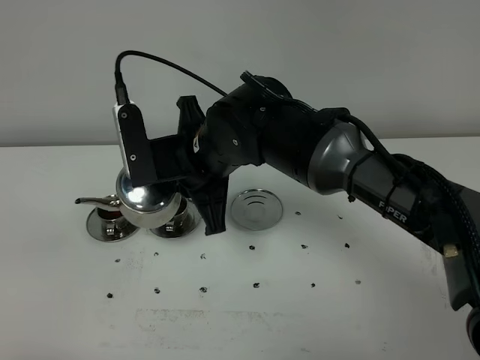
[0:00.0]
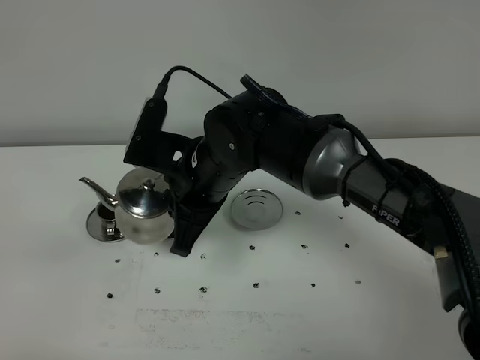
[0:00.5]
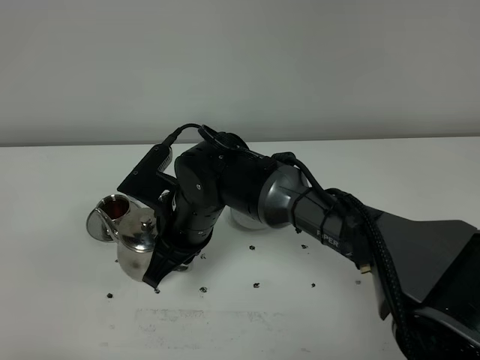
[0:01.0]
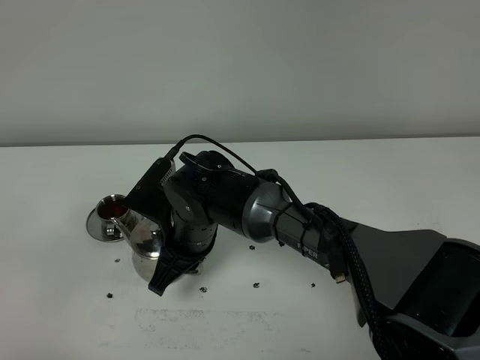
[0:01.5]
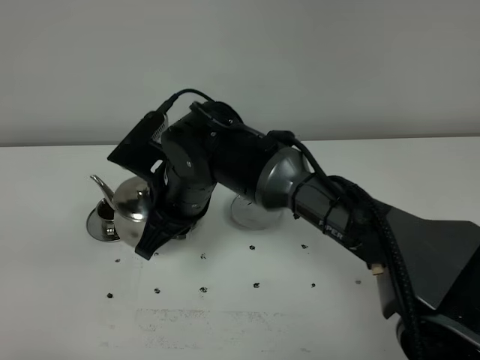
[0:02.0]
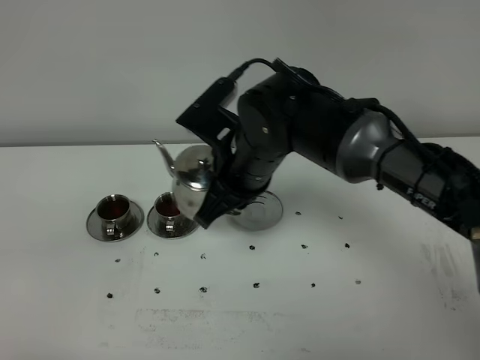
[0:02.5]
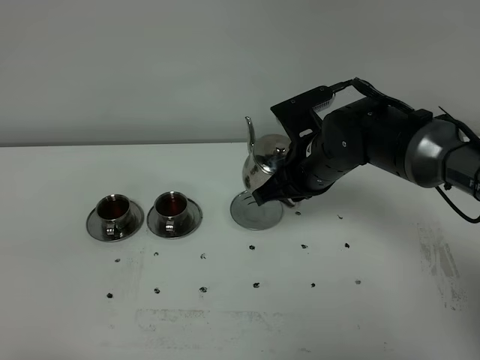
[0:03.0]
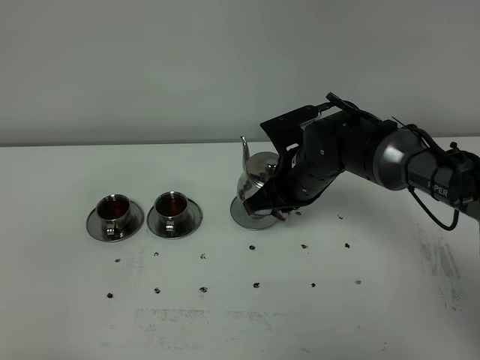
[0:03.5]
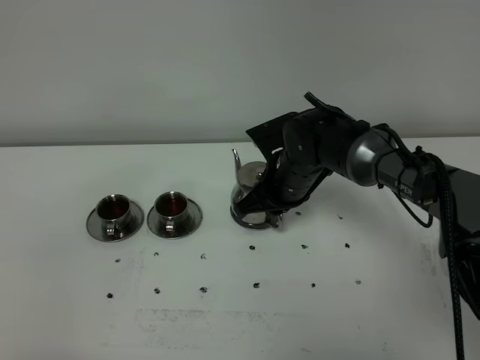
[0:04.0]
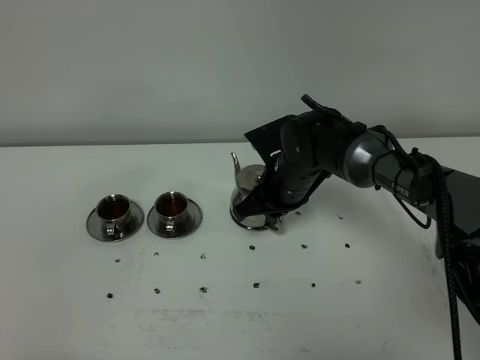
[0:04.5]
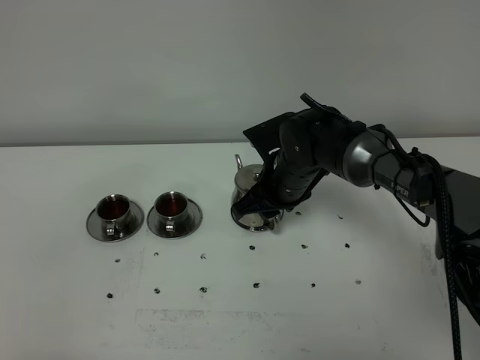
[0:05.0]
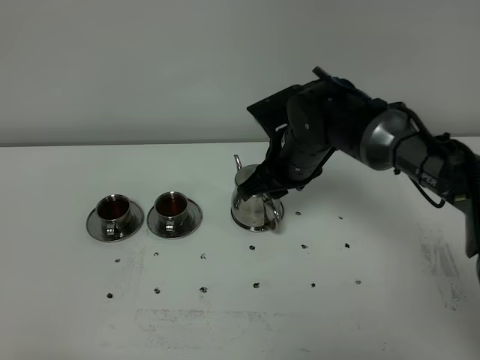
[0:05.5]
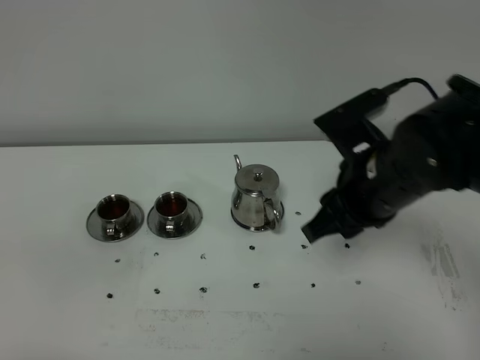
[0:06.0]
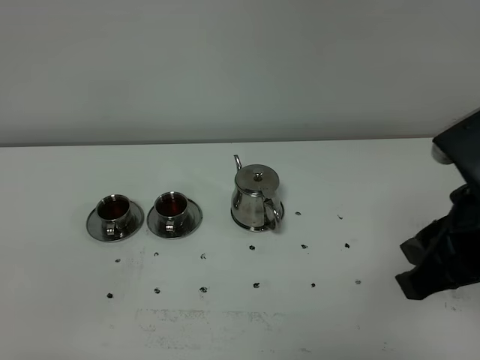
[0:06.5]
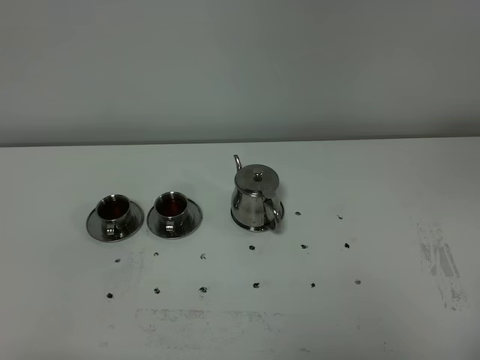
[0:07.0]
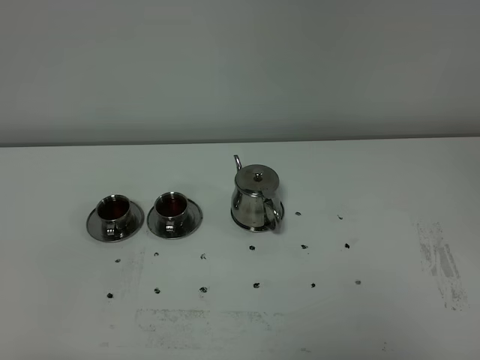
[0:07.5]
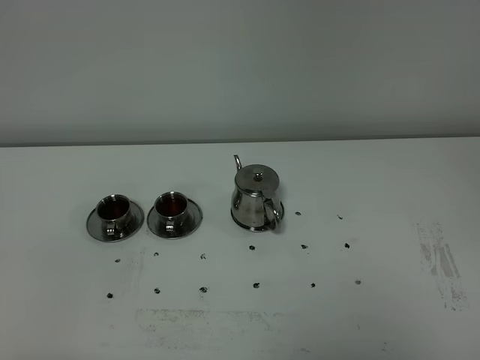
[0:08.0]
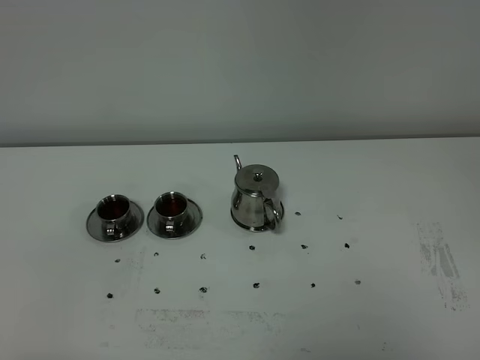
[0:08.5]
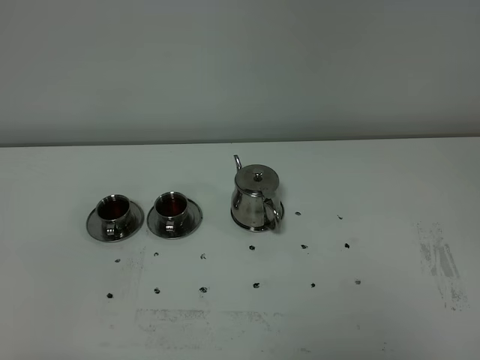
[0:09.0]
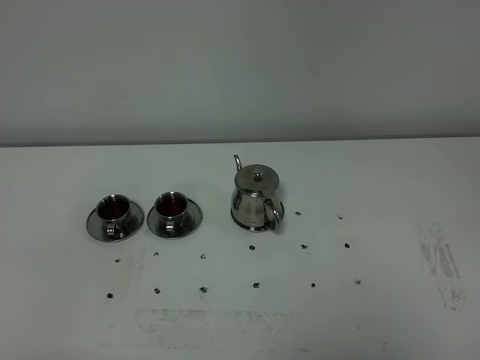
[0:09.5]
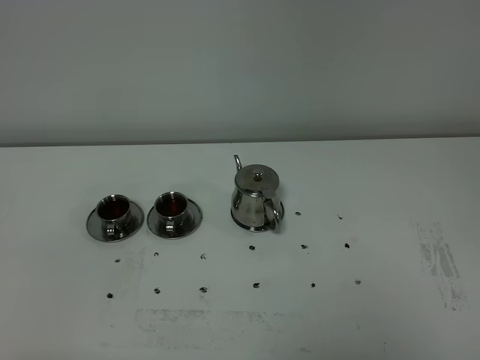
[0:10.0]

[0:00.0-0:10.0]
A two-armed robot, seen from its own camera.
Task of the whole recording: grasp the stainless steel teapot and pour the tea into the two stainless steel teacups one by one, put the stainless steel teapot back in its original place.
0:00.0 to 0:02.0: The right gripper goes downward and returns, about 10 cm each way.
0:02.0 to 0:04.0: The right gripper is displaced to the right, forward and downward by approximately 15 cm.
0:04.0 to 0:06.0: The right gripper shifts approximately 20 cm backward, upward and to the right, and opens up.
0:06.0 to 0:08.0: The right gripper heads backward and to the right, covering roughly 30 cm.

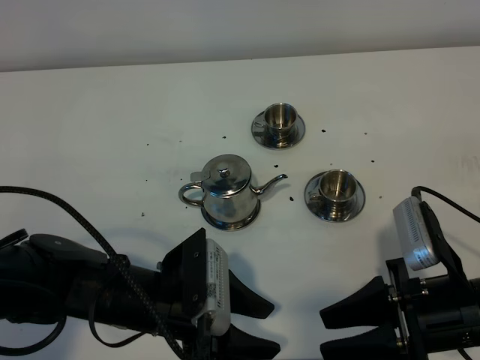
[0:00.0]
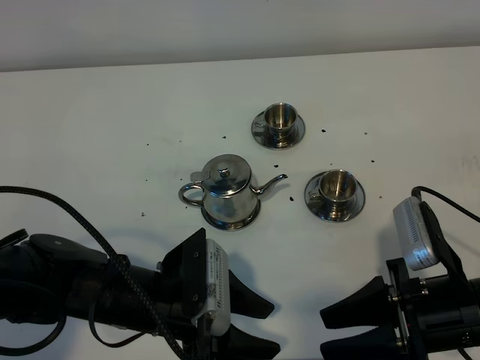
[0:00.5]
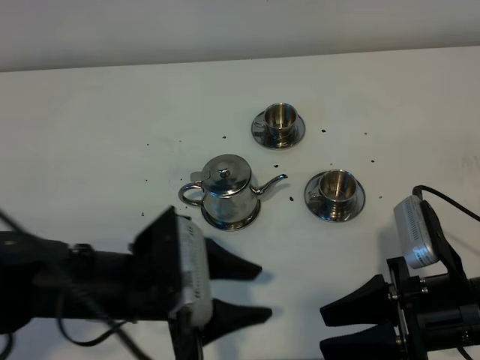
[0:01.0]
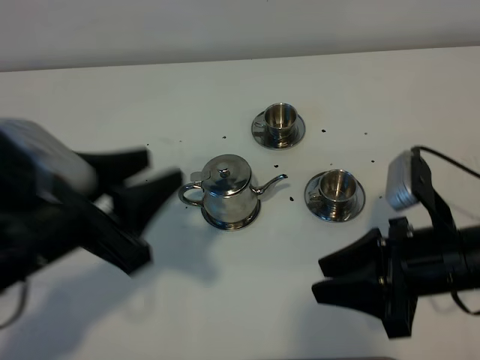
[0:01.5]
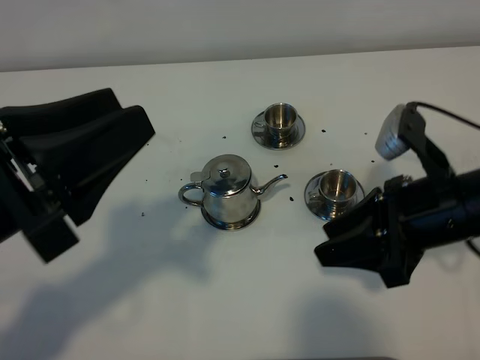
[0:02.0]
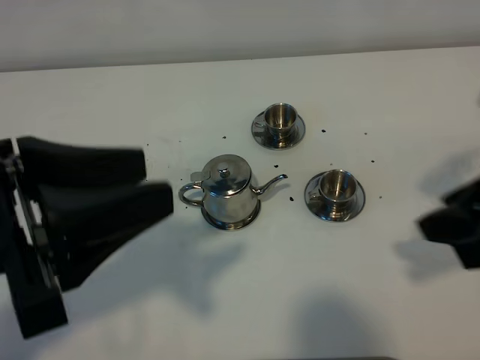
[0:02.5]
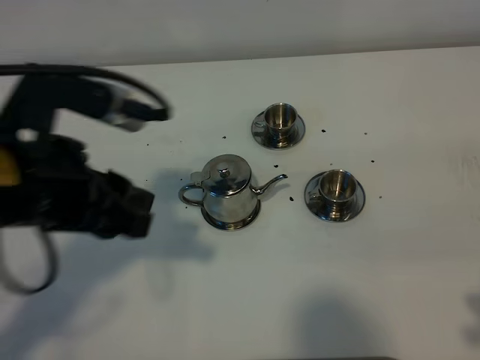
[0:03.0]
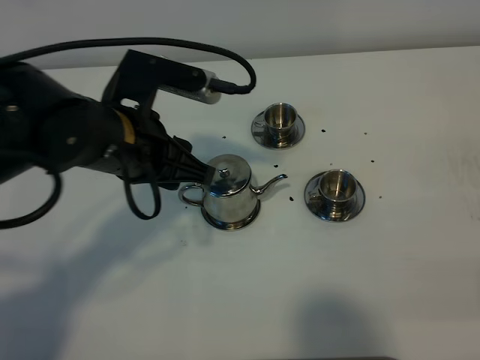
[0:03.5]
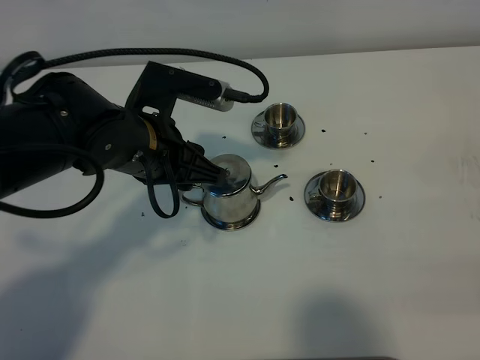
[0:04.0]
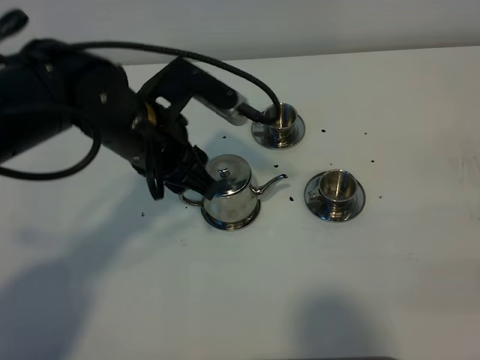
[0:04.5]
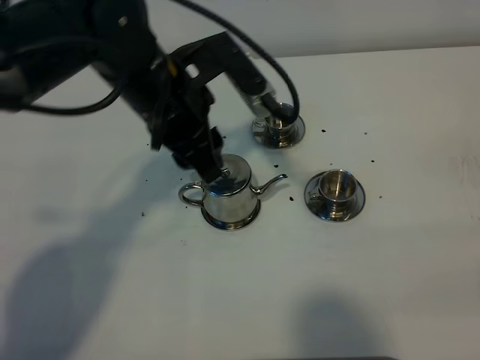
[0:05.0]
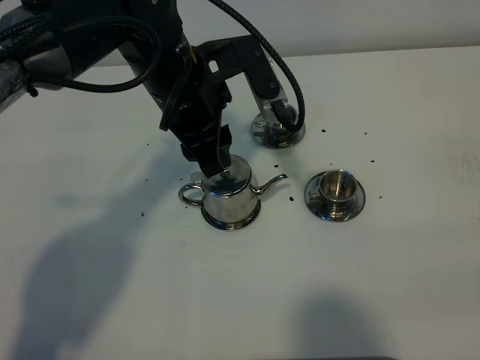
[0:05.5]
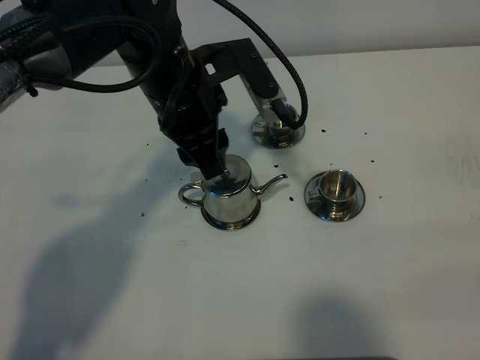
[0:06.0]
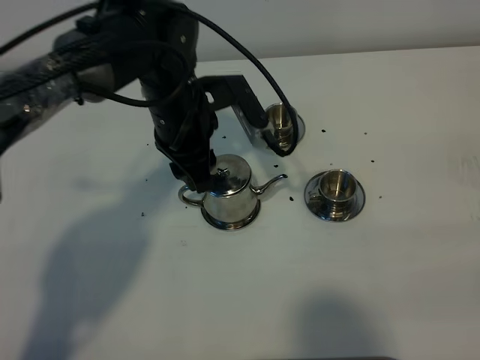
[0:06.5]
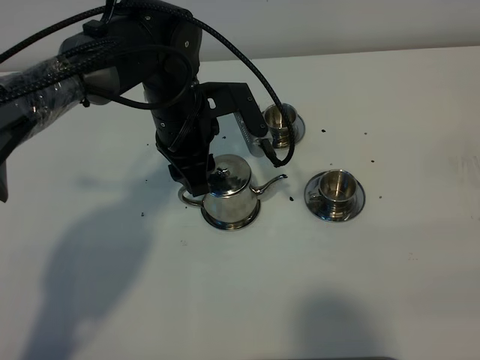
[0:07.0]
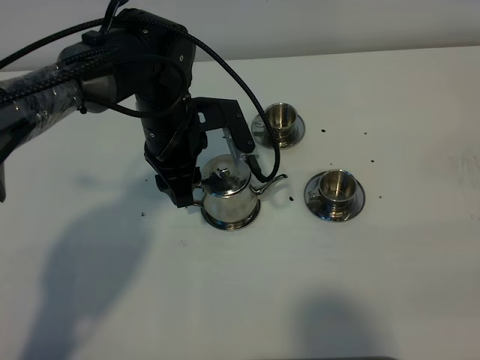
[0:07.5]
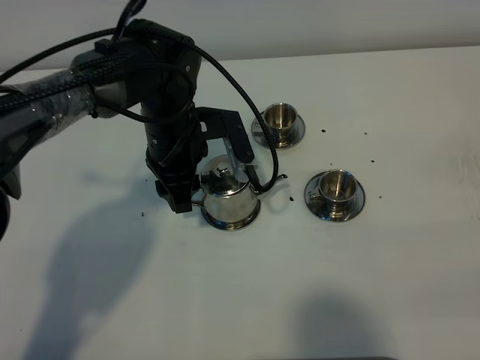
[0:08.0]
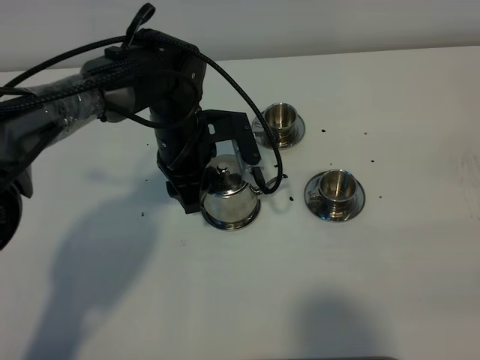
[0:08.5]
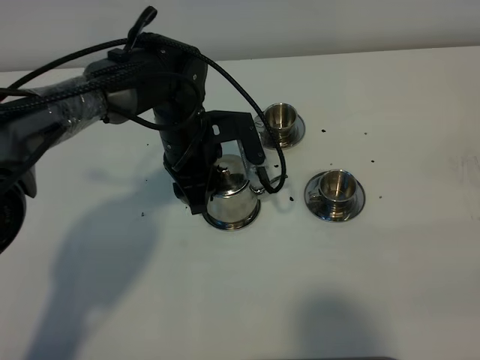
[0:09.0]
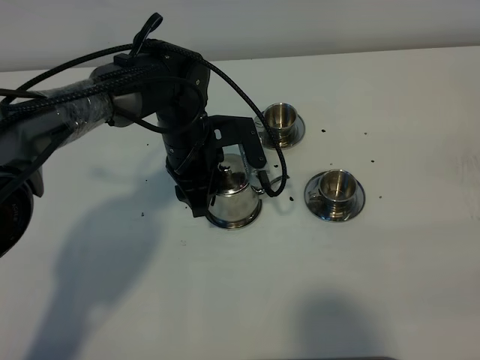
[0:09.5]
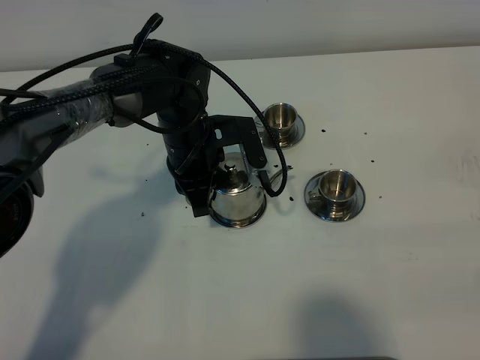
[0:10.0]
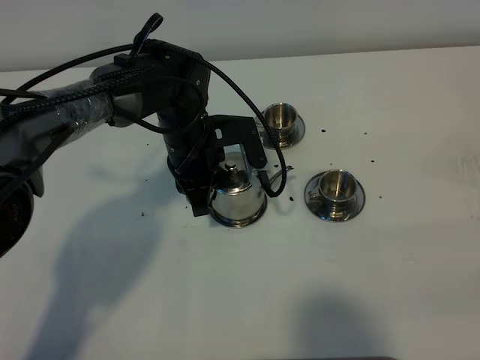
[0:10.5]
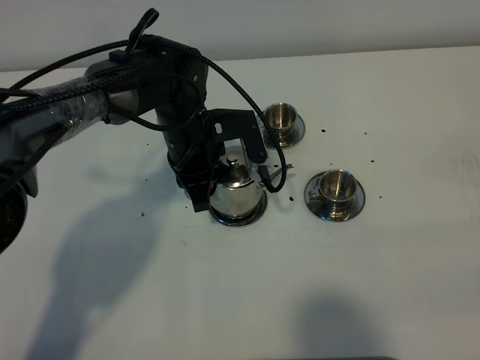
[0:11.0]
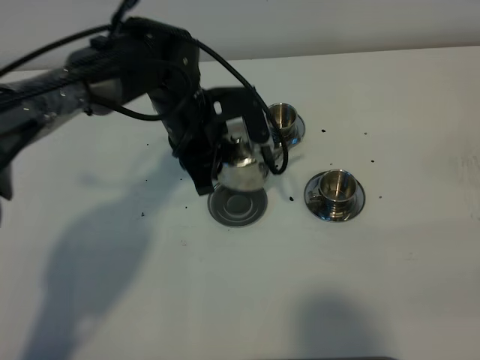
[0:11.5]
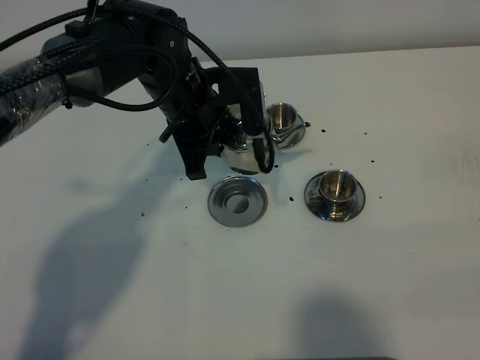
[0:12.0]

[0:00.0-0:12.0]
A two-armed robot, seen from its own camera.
Task of the whole recording: grasp the stainless steel teapot and pour the tea into the two stainless steel teacups one by one, put the stainless steel teapot back in its original place.
Step, 0:00.0 to 0:11.0: Pick up the teapot with the left gripper.
0:00.0 to 0:02.0: The left gripper is displaced upward by some 20 cm. Meanwhile the right gripper goes approximately 10 cm forward and upward.
0:02.0 to 0:04.0: The left gripper goes about 20 cm forward, downward and to the right, while the right gripper moves backward and to the right, some 20 cm.
0:04.0 to 0:06.0: The left gripper moves about 10 cm; the right gripper closes.
0:06.0 to 0:08.0: The right gripper closes. Meanwhile the left gripper goes some 10 cm downward.
0:08.0 to 0:10.0: The left gripper closes its fingers.
0:10.0 to 0:12.0: The left gripper shifts approximately 5 cm upward.

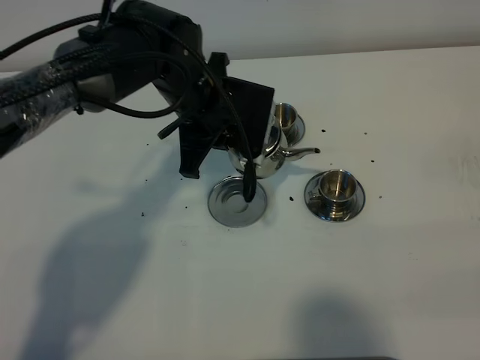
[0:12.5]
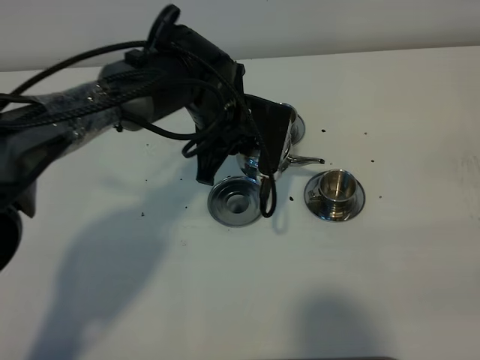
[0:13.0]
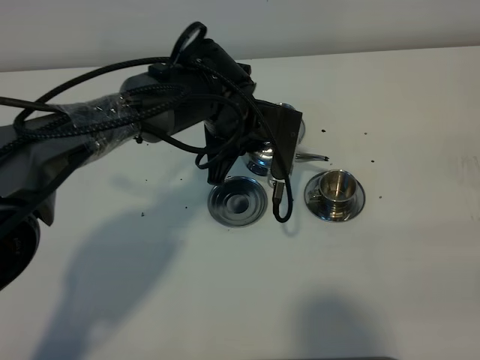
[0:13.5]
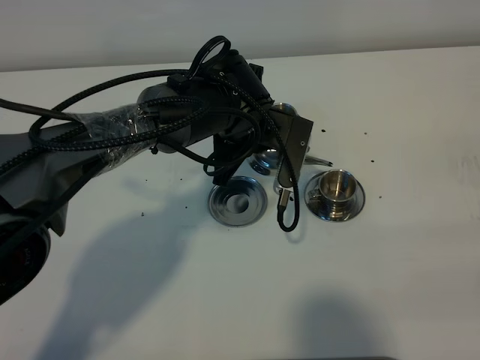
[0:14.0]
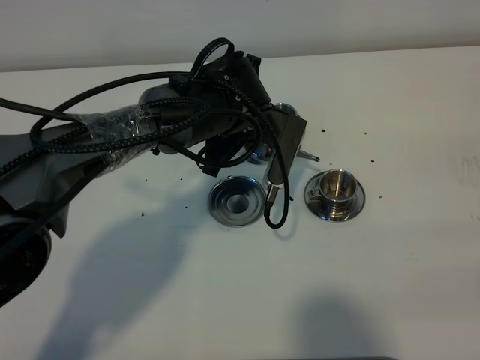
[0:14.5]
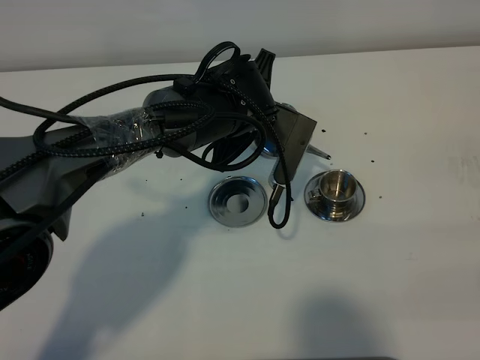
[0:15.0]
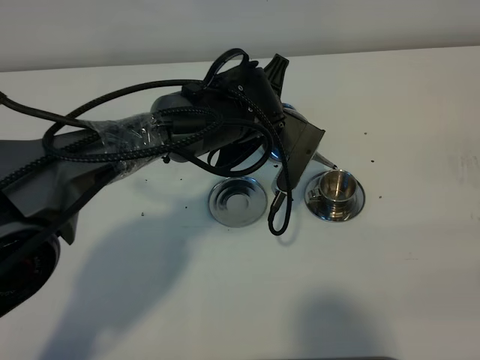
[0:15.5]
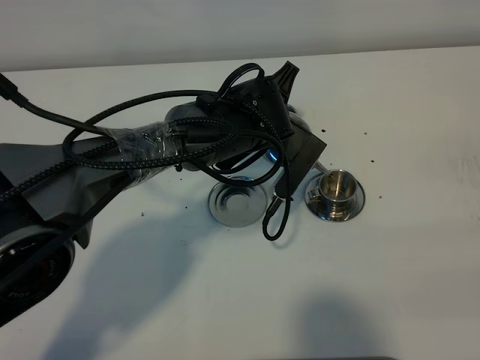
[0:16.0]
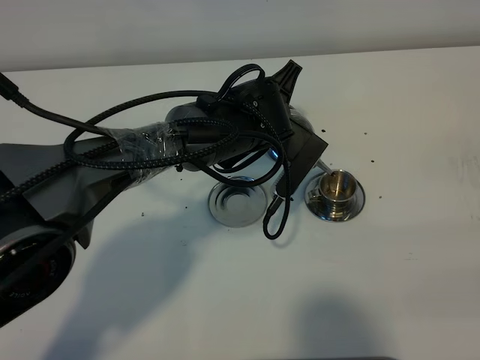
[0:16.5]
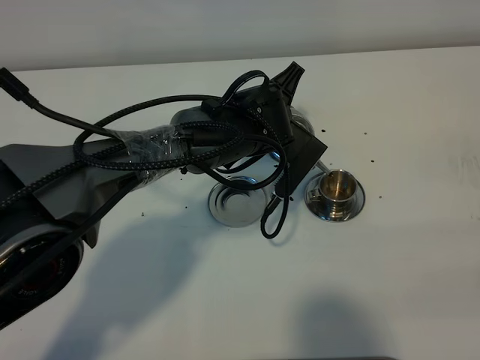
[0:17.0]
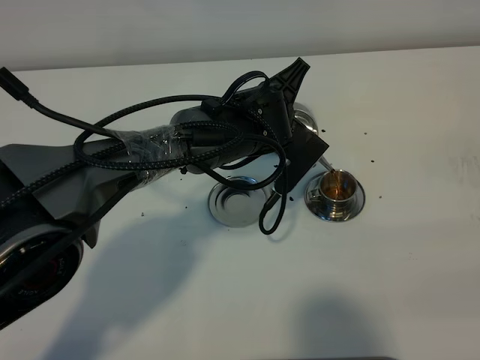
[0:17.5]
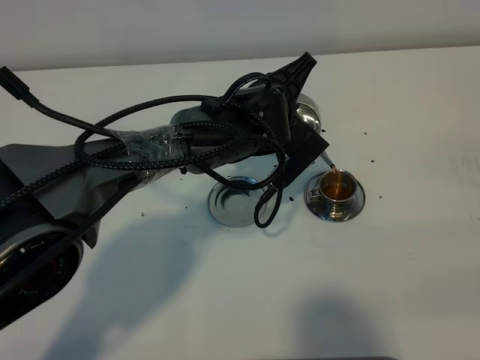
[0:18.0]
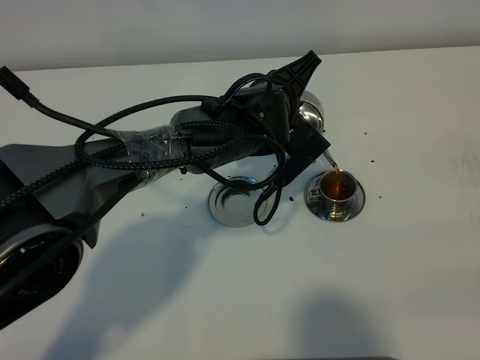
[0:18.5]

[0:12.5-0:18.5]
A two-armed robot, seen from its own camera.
Task of the whole recording: grasp the stainless steel teapot and pour the tea into the two stainless steel teacups one by one, put the stainless steel teapot back in its original place.
0:12.5 to 0:14.5: The left gripper changes place by approximately 5 cm.
0:14.5 to 0:16.5: The grippers stay close to where they were, moving slightly.
0:16.5 to 0:18.5: The grippers make only small movements.
